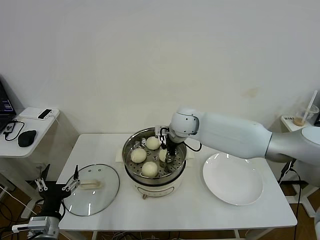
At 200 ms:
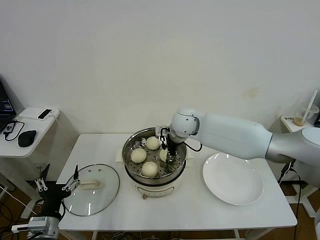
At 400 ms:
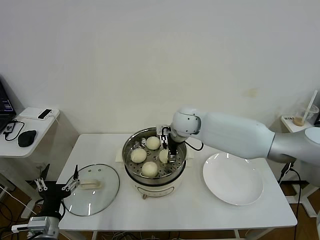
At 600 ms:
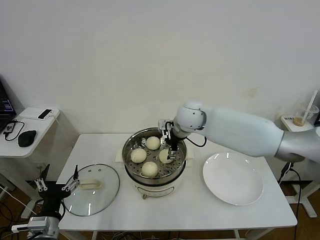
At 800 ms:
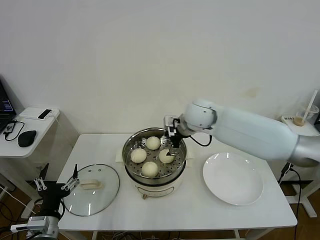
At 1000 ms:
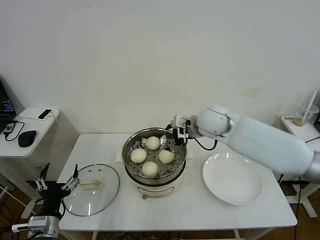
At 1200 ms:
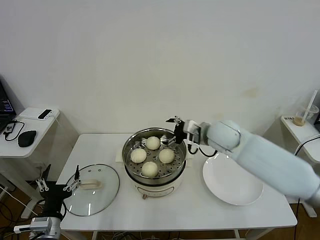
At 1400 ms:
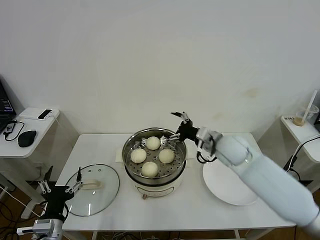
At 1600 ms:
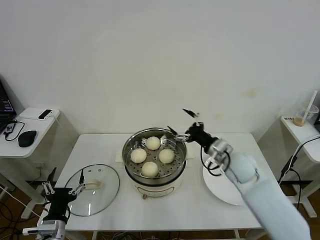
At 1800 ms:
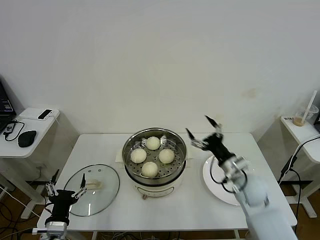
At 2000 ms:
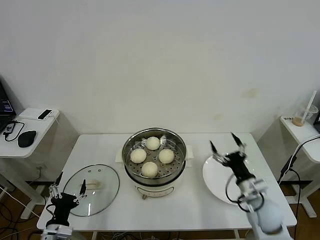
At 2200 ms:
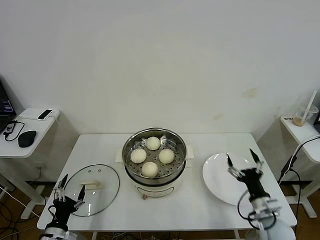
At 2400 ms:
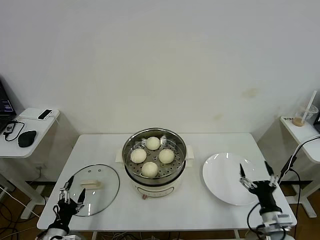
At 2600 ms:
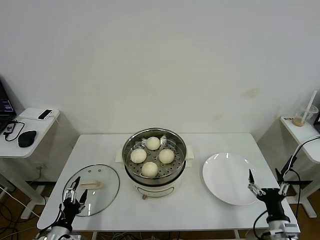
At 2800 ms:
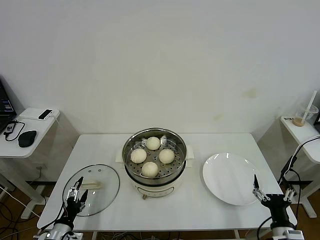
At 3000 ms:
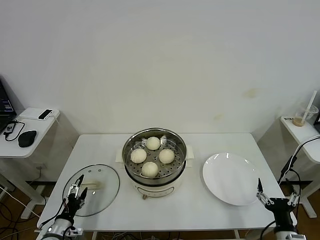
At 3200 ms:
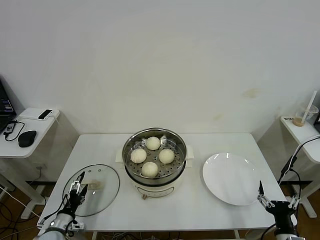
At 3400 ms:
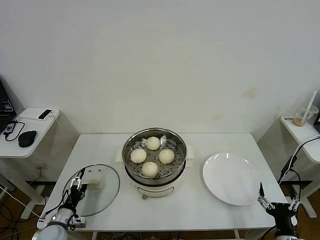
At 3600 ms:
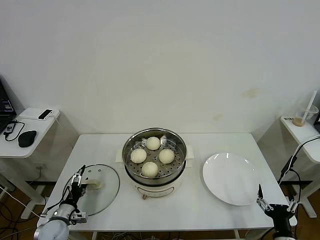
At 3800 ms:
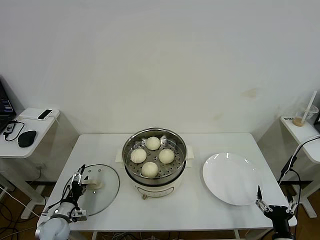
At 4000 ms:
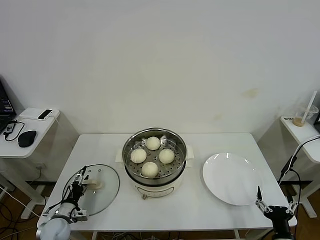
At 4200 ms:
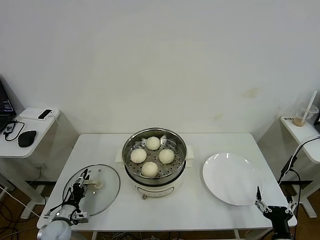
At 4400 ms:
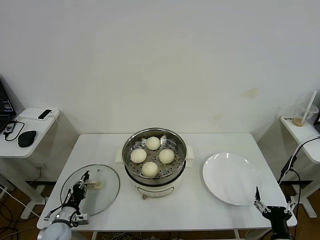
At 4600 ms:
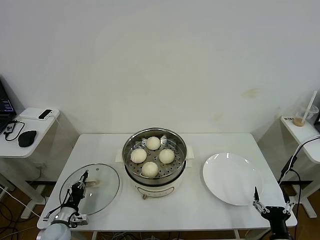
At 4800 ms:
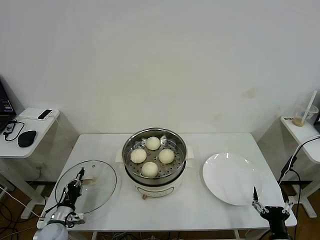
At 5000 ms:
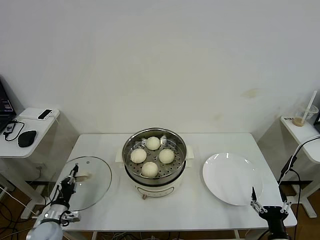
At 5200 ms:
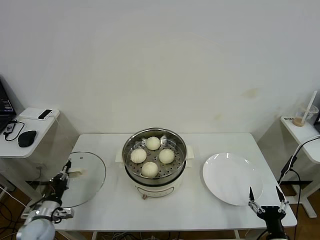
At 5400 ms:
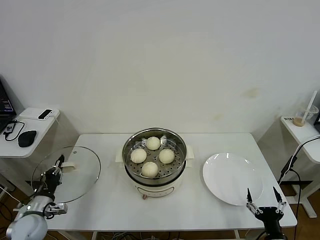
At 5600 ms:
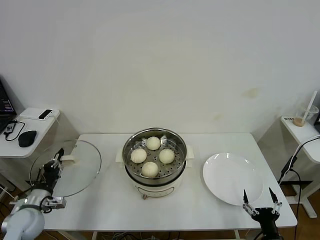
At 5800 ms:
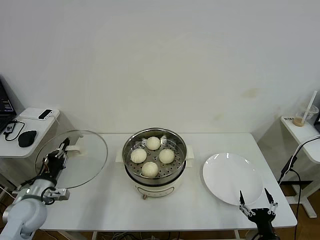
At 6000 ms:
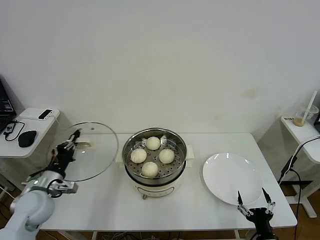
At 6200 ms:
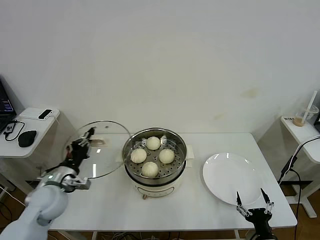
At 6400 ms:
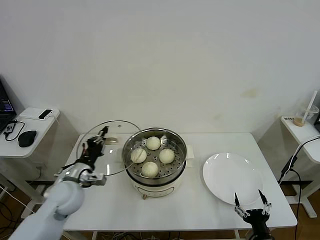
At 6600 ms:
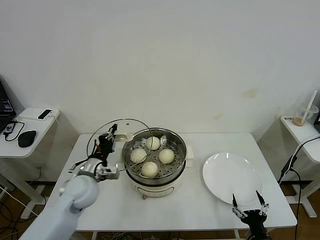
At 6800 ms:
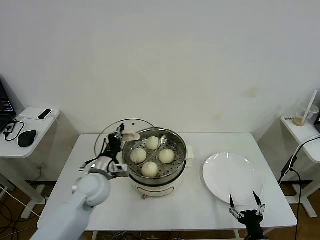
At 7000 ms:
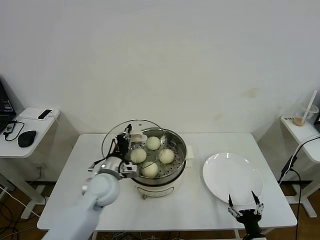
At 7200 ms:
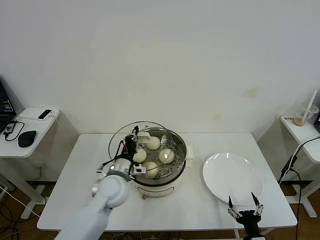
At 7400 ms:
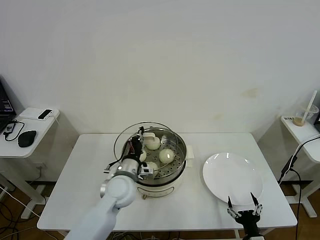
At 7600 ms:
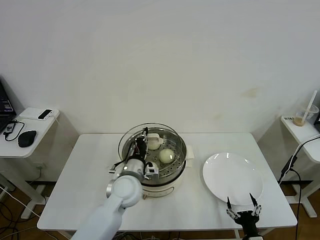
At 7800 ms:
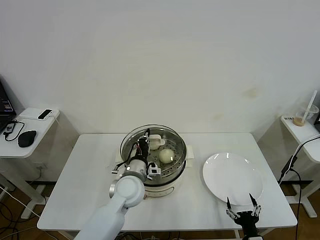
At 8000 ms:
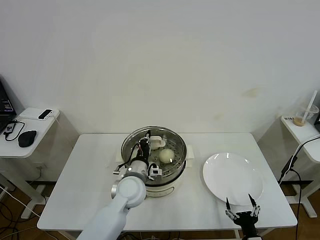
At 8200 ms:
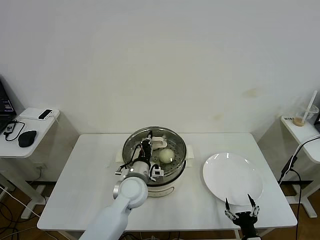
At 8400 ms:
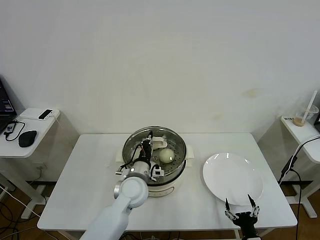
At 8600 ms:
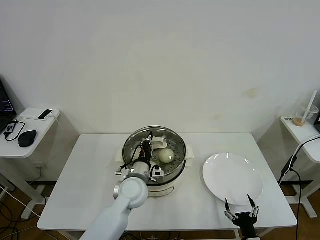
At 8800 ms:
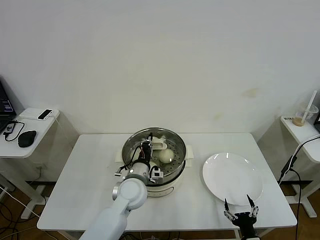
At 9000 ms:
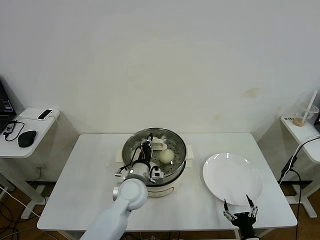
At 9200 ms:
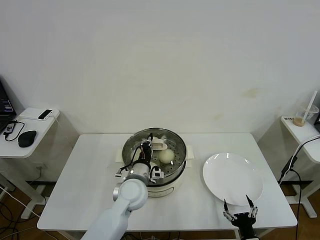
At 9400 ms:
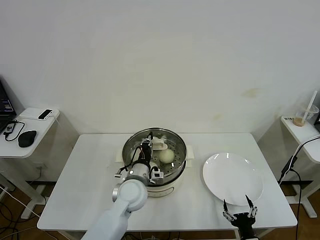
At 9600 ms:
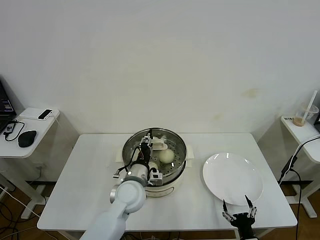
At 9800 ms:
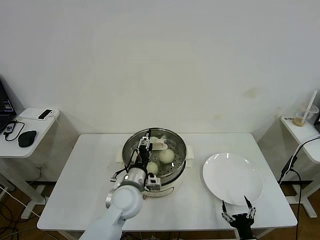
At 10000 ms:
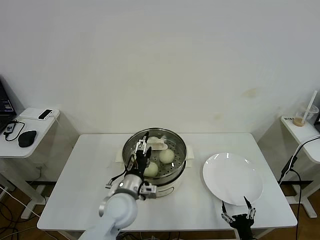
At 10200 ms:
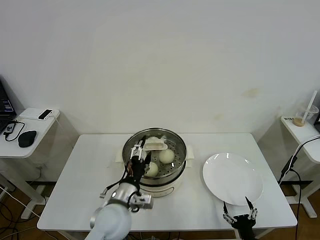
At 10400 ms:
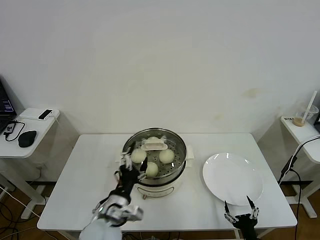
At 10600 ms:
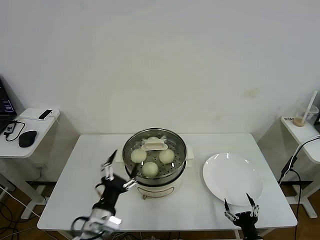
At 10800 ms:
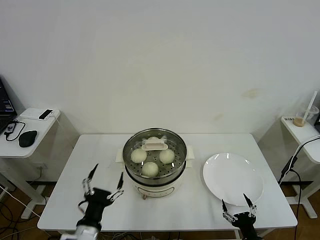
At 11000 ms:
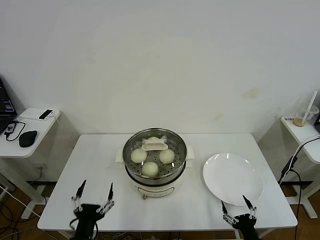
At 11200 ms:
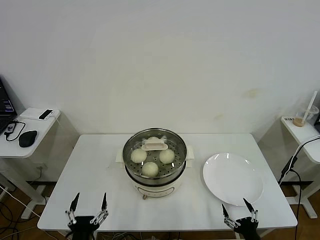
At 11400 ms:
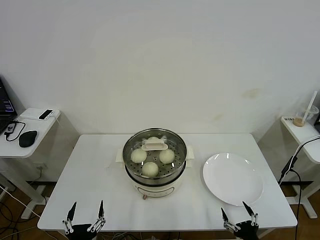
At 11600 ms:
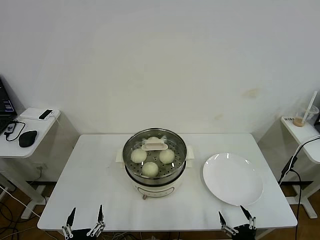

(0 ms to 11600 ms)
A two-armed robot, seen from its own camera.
Task of the whole recording: take steamed baozi put them in steamer then cover it.
Step, 800 ms - 4800 ms: Grasp the pot lid with left gripper.
Step, 5000 ms - 10000 ms: Place the pot lid on the steamer with left gripper.
0 ms - 1400 ms: The right gripper moves to the right and backward, roughly 15 cm, and opens up.
1400 ms - 2800 ms: The right gripper is displaced backward, downward and to the right by about 35 cm; the left gripper goes roughly 10 cm downward and to the left.
2800 ms - 4400 ms: The left gripper moves forward, approximately 10 cm, and closes.
4400 ms - 5800 ms: The left gripper shifts approximately 15 cm upward.
5800 ms - 7200 ms: The left gripper shifts some 25 cm to the right.
7200 ms - 8800 ms: The left gripper travels to the right by about 5 cm.
8800 ms - 10200 ms: The left gripper shifts about 10 cm backward, and opens.
10200 ms - 11600 ms: The right gripper ends up about 5 cm from where it was. The left gripper moves backward and to the left, roughly 25 cm.

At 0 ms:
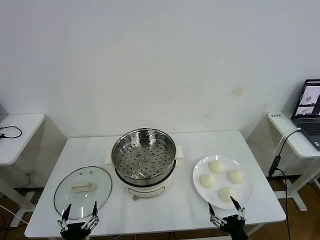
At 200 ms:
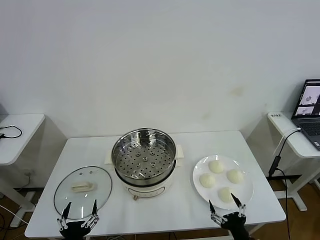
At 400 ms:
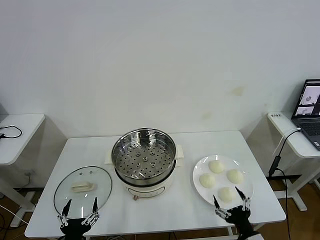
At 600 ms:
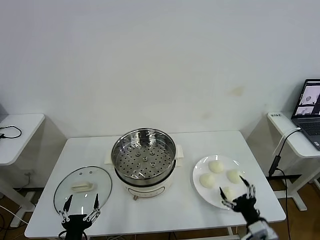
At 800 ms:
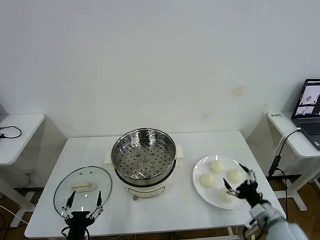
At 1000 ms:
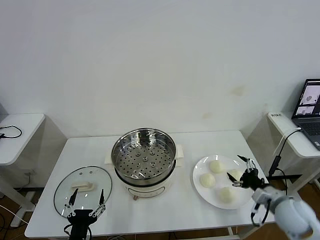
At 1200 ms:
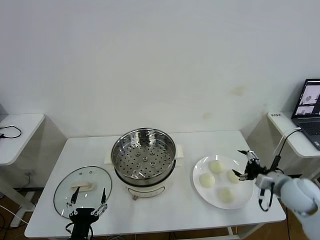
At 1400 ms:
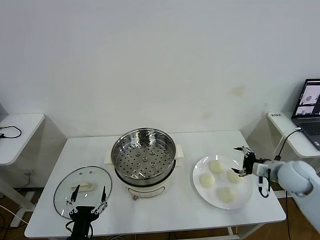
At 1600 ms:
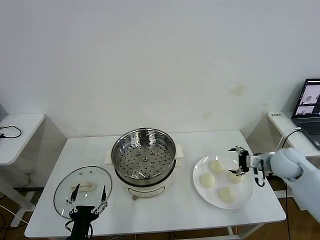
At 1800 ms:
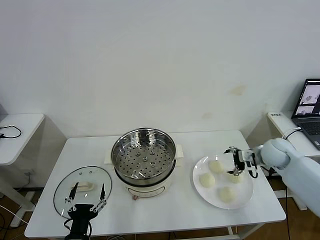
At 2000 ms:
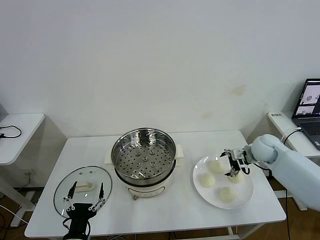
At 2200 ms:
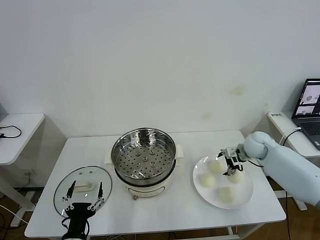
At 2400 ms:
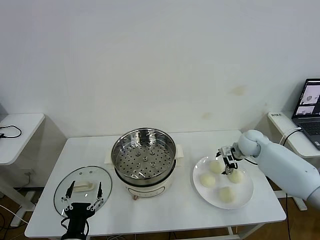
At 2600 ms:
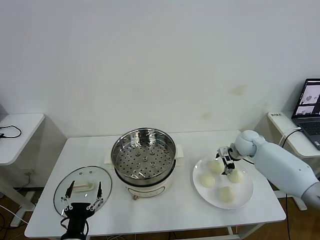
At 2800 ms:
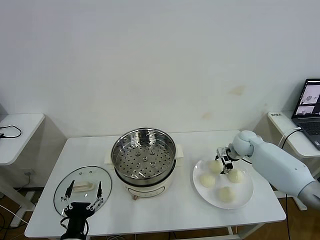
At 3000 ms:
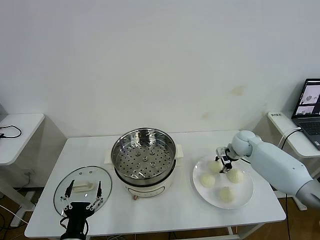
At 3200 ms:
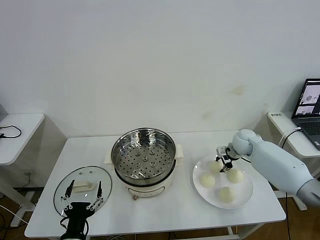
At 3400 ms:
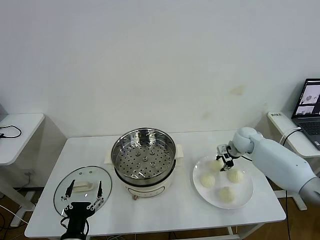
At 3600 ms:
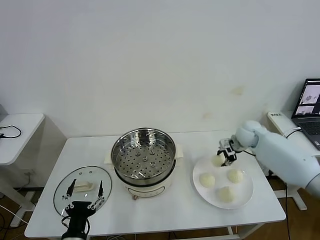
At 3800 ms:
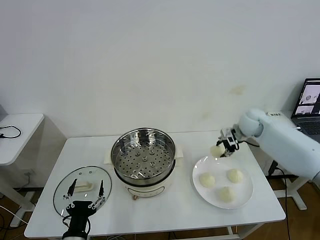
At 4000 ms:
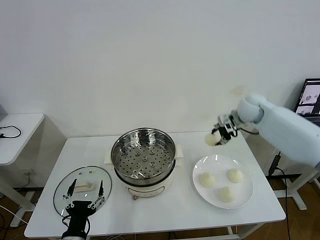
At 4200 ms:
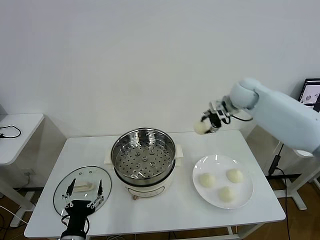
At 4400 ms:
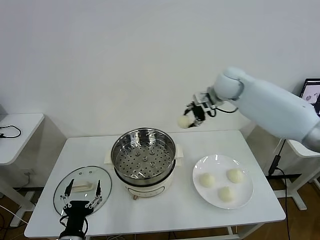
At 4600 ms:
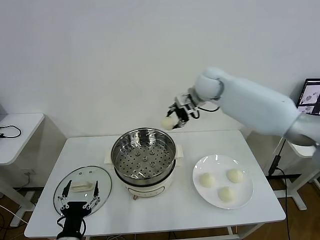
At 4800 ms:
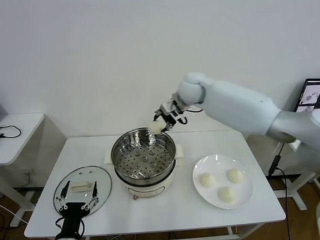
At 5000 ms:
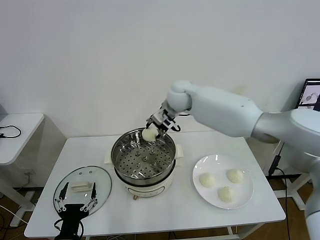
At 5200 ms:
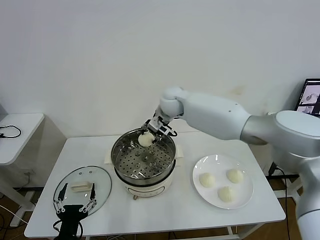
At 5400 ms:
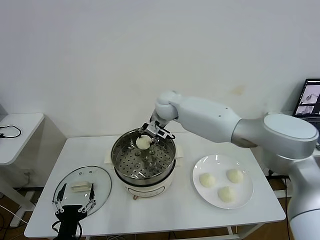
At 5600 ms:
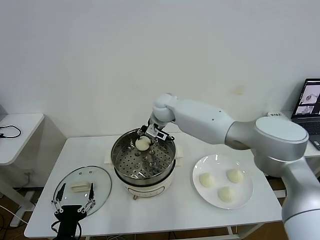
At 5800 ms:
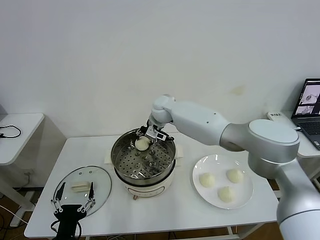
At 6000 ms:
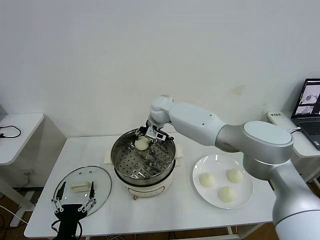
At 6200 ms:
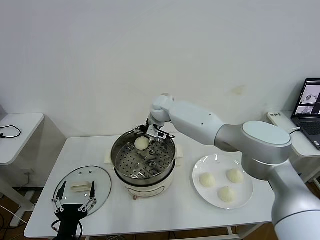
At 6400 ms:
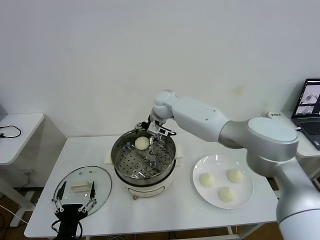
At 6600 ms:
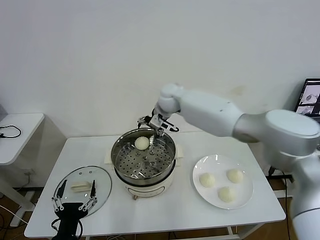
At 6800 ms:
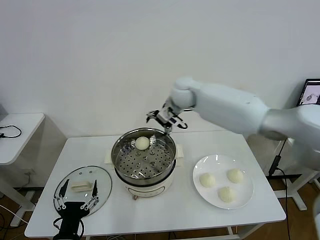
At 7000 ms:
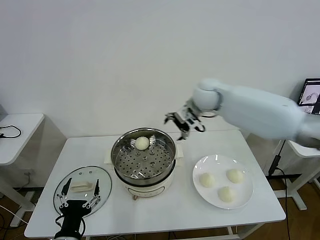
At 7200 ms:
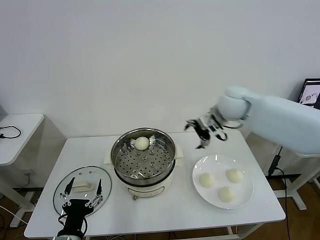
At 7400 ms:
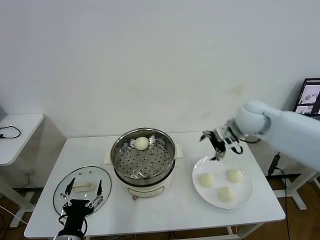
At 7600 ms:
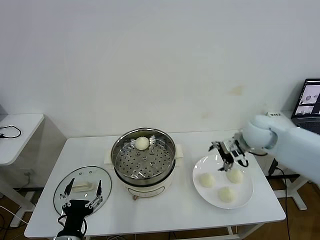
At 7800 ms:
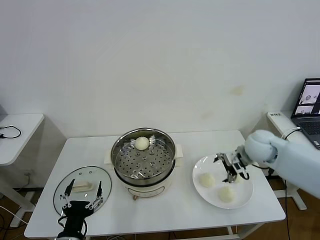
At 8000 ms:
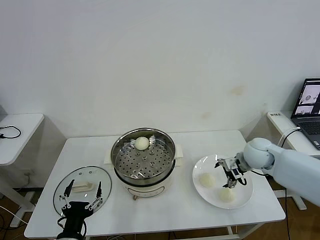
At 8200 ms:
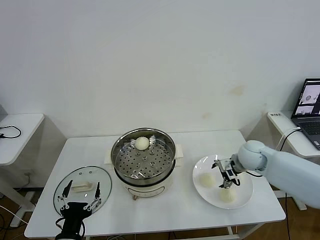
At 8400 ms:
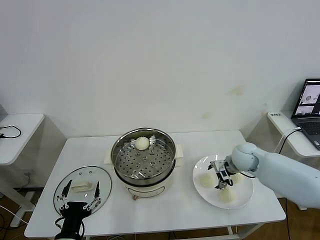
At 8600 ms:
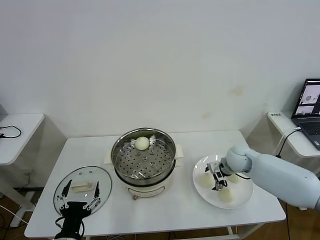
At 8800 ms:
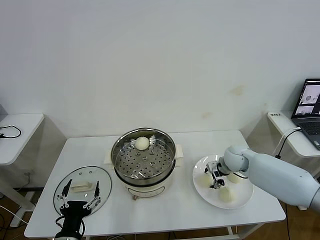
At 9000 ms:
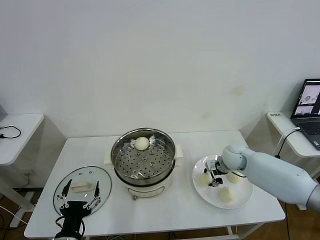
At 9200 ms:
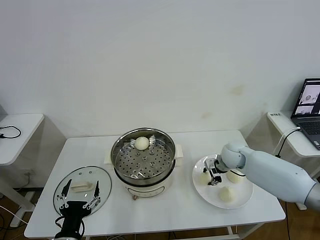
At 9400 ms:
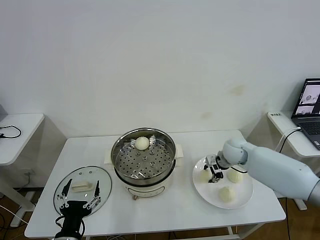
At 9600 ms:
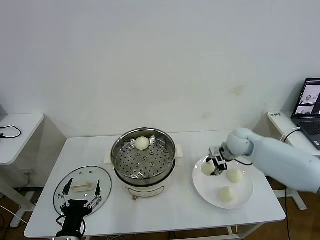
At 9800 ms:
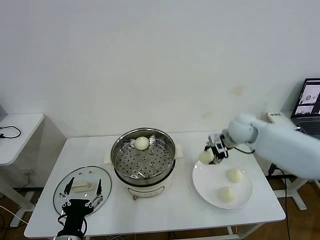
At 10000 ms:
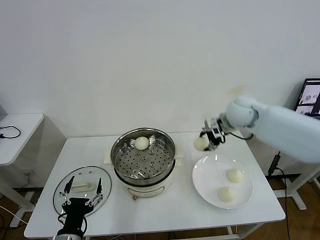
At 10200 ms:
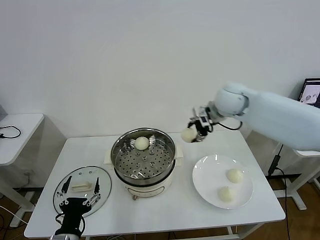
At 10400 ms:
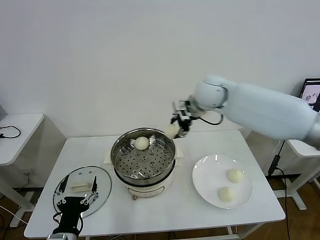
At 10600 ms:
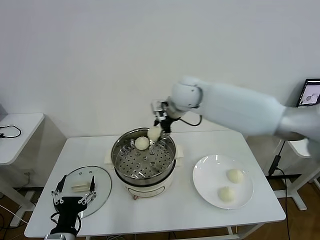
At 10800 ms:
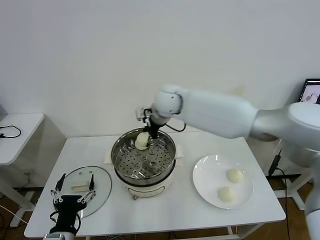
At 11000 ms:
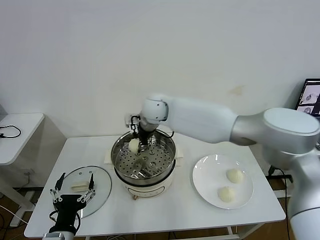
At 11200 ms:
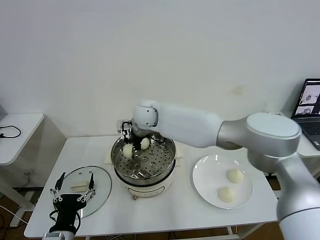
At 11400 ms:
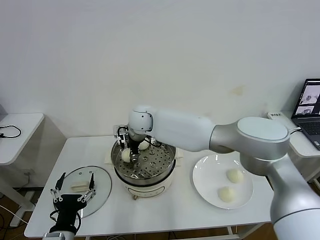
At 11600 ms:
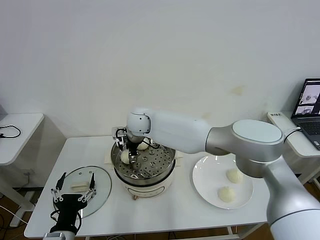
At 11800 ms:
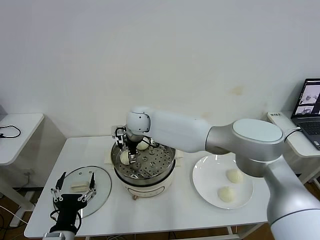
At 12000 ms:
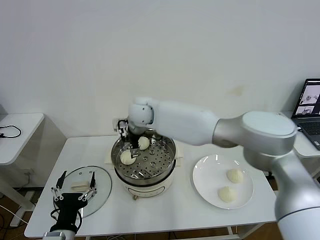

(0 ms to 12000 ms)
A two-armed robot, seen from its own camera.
Task of the whole recording: take steamed baozi put them in steamer then cover it.
Step, 0 ms - 3000 ms: Grasp the baozi in the plate with right gripper.
Step, 3200 ms - 6000 ms: Place the baozi on the steamer with right gripper.
Step, 6200 ms - 8800 ms: Grasp the baozi in the plate with right gripper.
Step, 9200 ms - 11600 ms: Place the baozi on the steamer with right gripper.
1600 ms - 3000 ms: The right gripper heads forward and to the left, covering approximately 10 cm, and closes its fingers.
3000 ms - 4400 ms: The right gripper goes about 30 cm upward and to the left.
4400 ms - 6000 ms: The right gripper shifts roughly 20 cm to the left and downward, and opens up.
6000 ms - 7600 ms: The right gripper travels to the right and backward by approximately 35 cm, and opens.
7600 ms - 9000 ms: The right gripper is displaced downward by some 10 cm, and closes its fingers.
9000 ms - 10400 ms: The right gripper travels upward and to the left by approximately 30 cm.
10400 ms - 12000 ms: The right gripper is displaced to the left by about 15 cm, and opens up.
